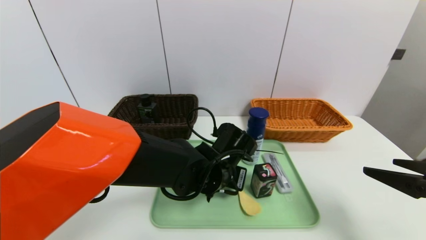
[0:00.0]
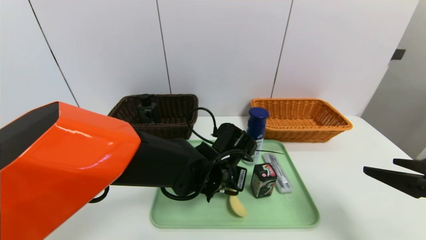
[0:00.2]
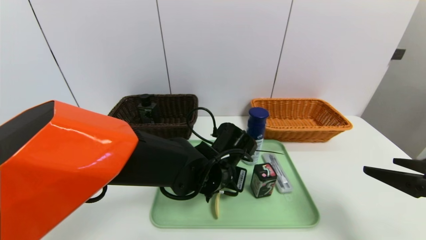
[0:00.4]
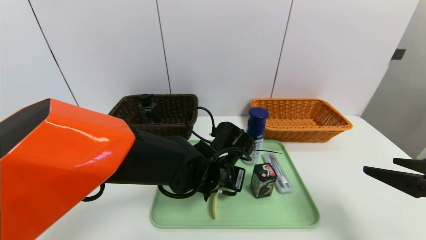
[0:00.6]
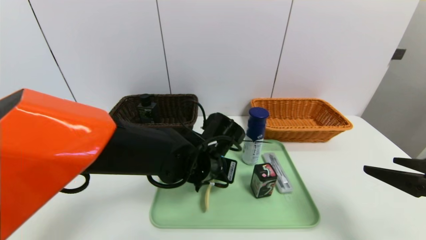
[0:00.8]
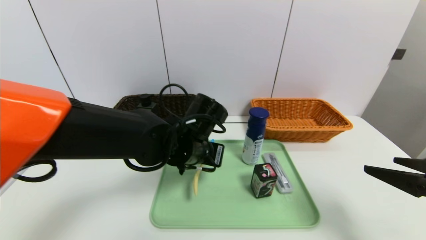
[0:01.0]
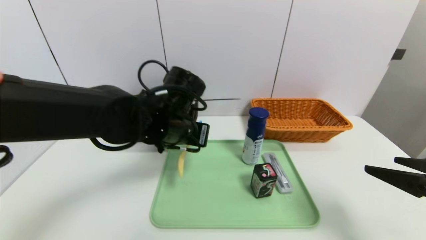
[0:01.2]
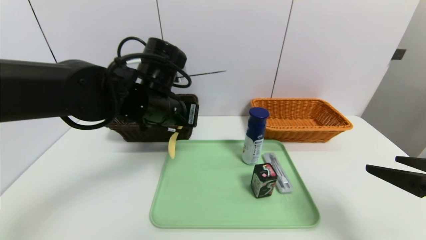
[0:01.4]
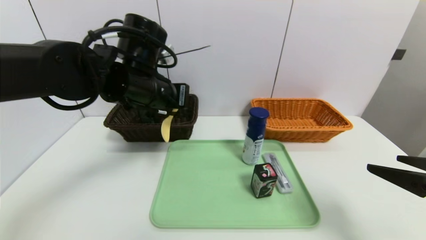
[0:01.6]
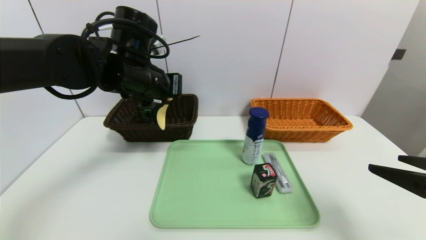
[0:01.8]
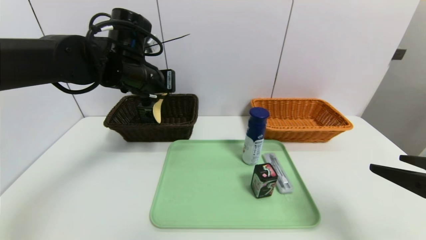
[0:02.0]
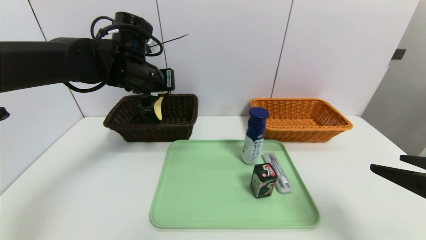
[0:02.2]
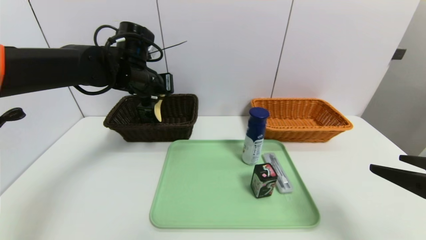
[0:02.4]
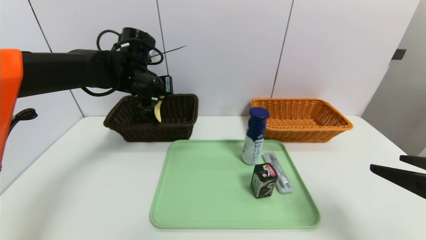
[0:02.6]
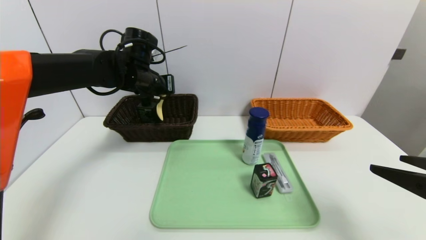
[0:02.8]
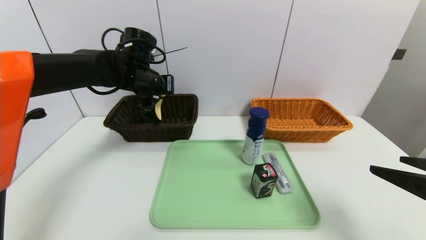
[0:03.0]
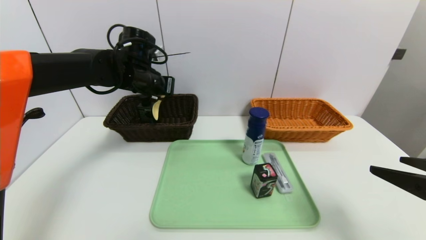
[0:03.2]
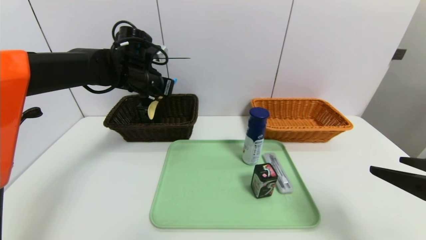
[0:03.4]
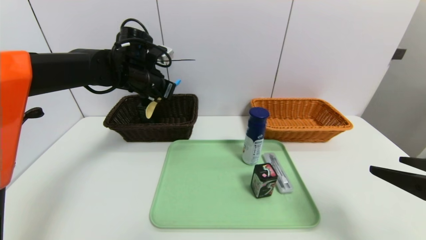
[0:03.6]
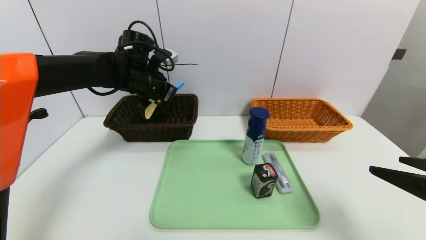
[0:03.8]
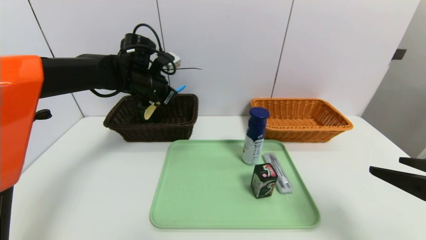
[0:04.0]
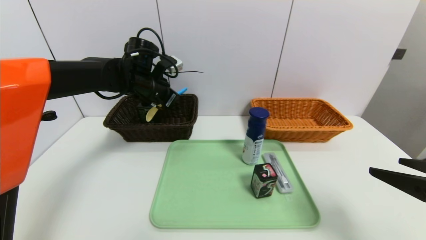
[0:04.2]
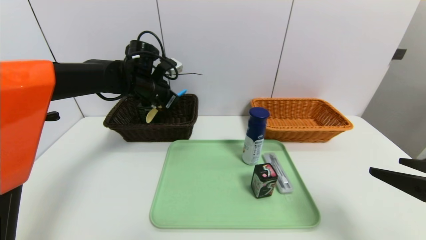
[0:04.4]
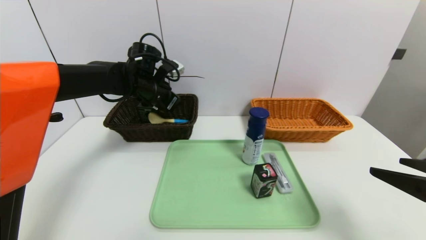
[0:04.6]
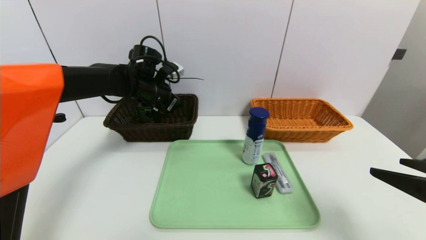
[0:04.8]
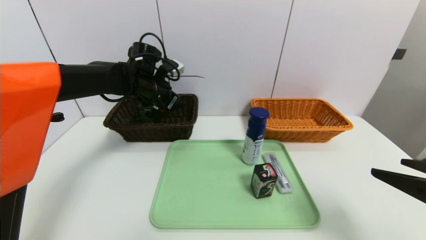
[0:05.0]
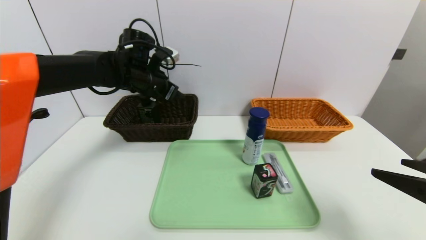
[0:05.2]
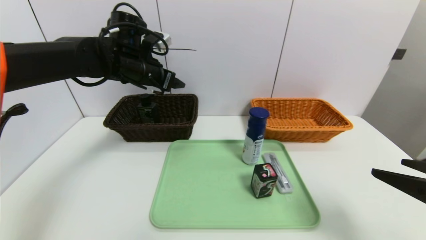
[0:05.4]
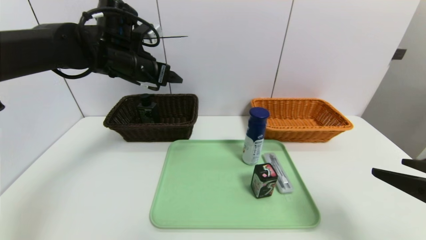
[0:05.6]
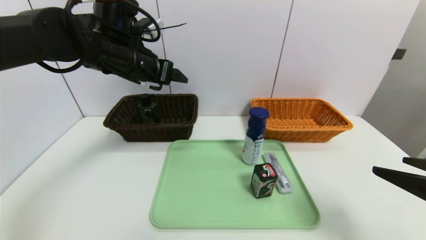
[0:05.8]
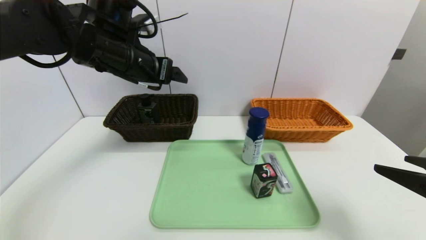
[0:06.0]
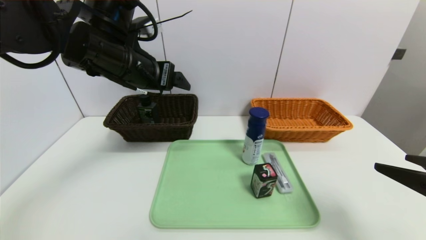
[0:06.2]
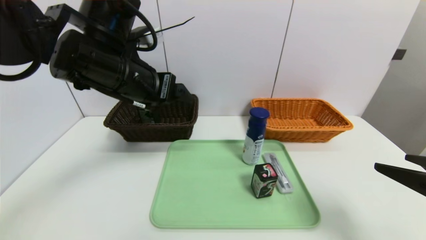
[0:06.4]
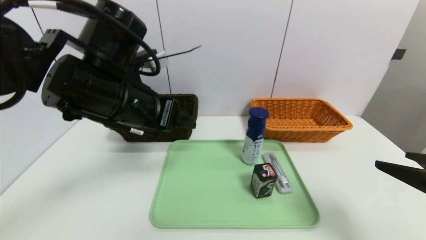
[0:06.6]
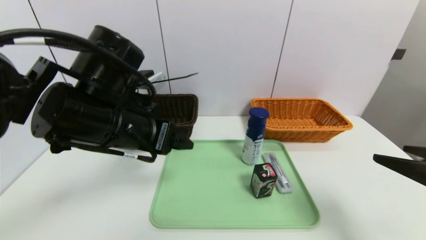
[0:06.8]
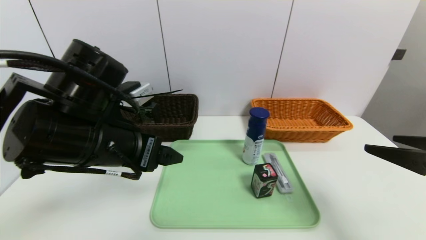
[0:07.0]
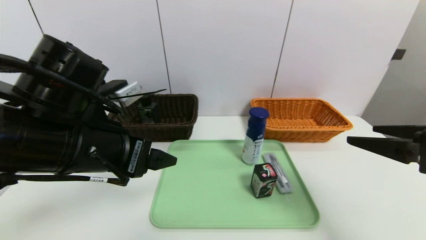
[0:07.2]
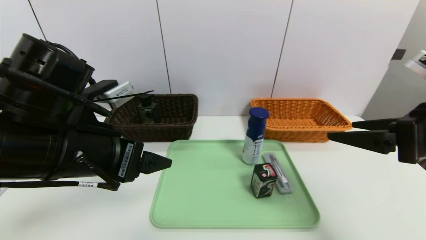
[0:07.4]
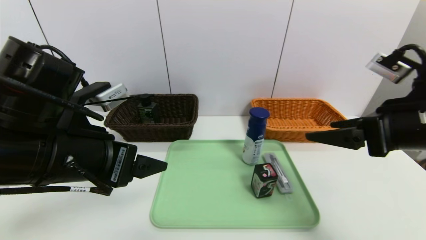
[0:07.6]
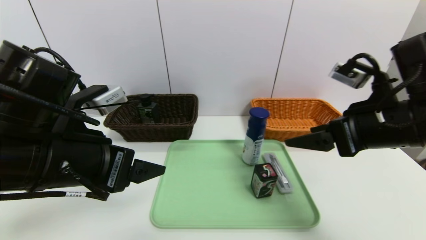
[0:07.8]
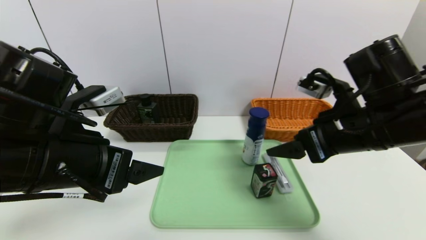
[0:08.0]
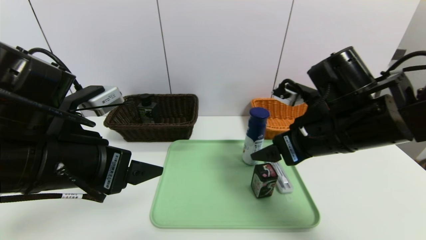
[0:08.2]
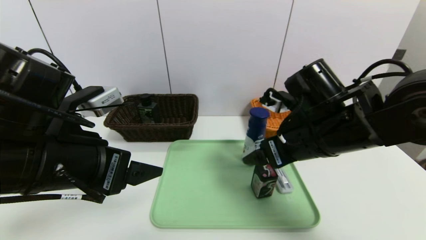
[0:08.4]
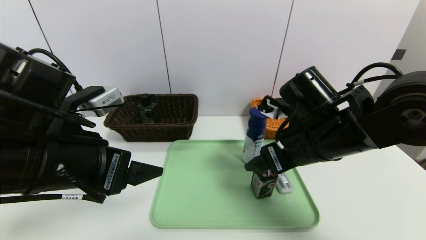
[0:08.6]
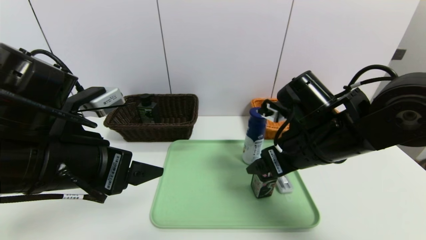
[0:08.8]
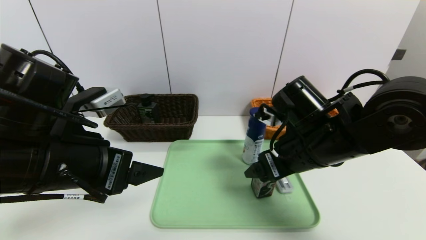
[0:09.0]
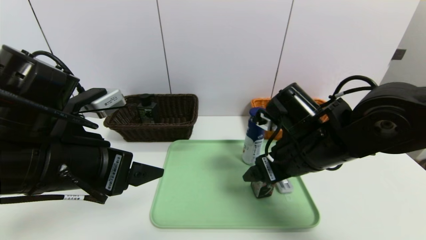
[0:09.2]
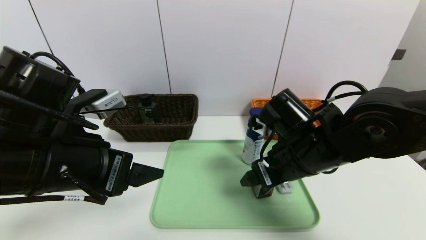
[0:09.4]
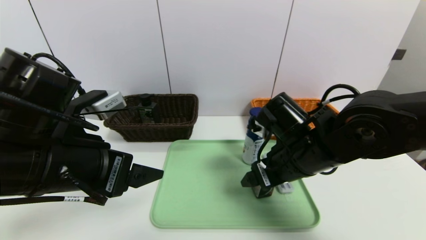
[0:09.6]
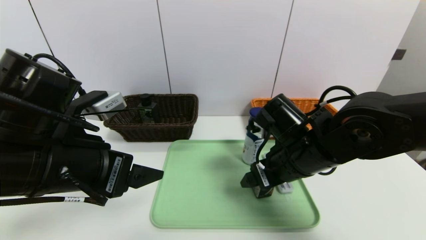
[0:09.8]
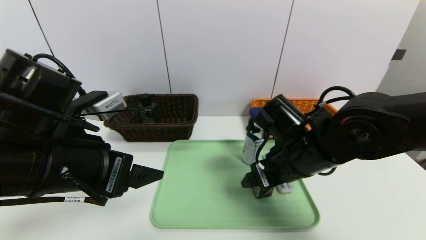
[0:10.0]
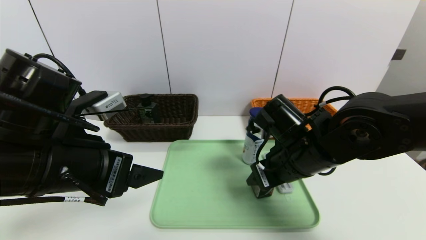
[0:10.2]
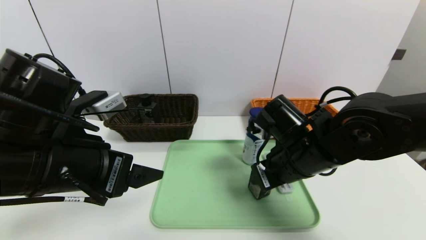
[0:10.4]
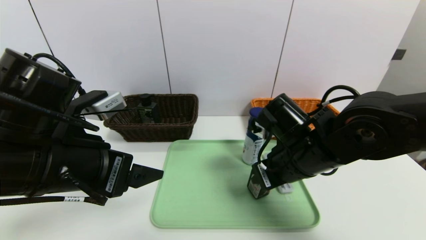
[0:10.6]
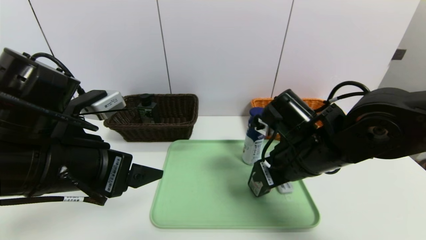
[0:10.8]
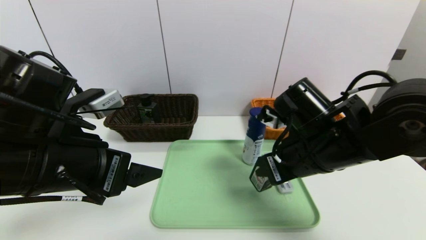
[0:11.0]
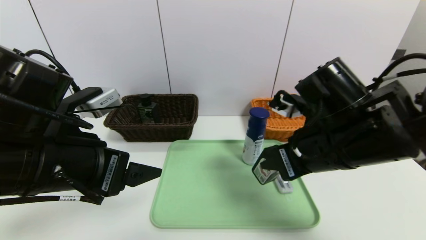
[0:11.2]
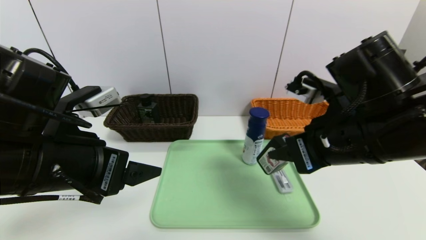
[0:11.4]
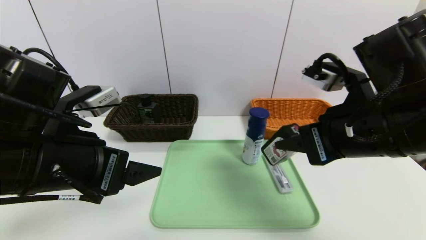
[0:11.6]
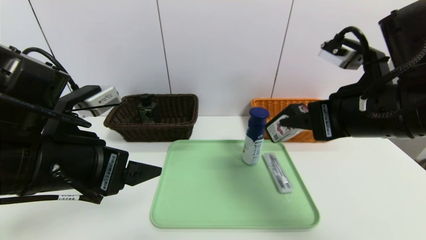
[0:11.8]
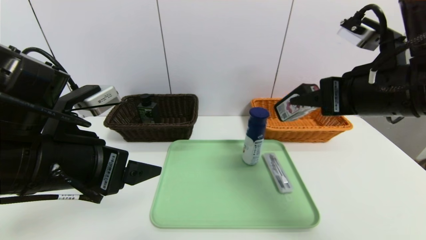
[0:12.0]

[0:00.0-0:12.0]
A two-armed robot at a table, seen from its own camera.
Task of the whole recording: place the food in the right basket with the right gripper, and place the non food items in the left basket with the left gripper.
Step, 0:00.0 to 0:05.0: Grasp the spoon and put it in the left basket.
0:00.0 to 0:01.6: The left gripper goes roughly 20 cm upward and to the left, and closes up.
0:01.6 to 0:03.0: The left gripper moves forward, roughly 10 cm.
0:04.4 to 0:06.0: The left gripper travels backward and upward by about 15 cm, and opens up.
0:06.0 to 0:07.6: The left gripper is displaced backward and downward by some 15 cm. Meanwhile the right gripper shifts some 10 cm forward and to the left.
0:07.6 to 0:09.0: The right gripper travels to the left and downward by approximately 15 cm.
0:09.0 to 0:10.4: The right gripper closes its fingers.
0:10.4 to 0:12.0: The right gripper moves upward and to the right, approximately 15 cm.

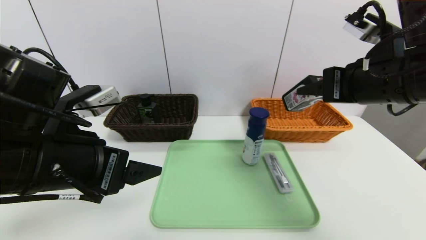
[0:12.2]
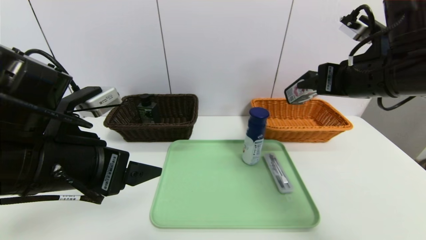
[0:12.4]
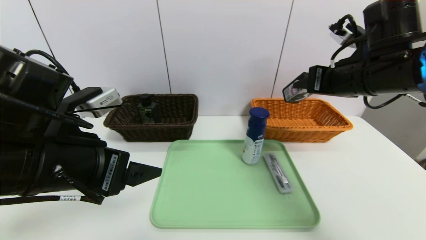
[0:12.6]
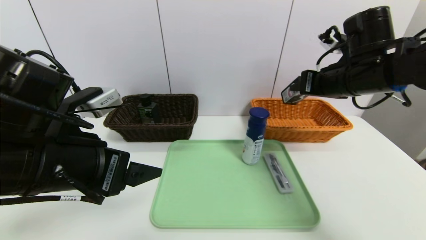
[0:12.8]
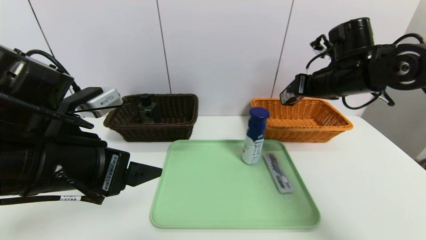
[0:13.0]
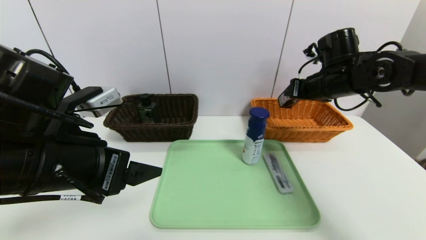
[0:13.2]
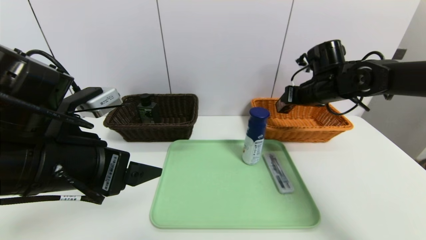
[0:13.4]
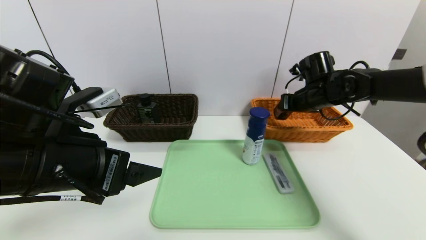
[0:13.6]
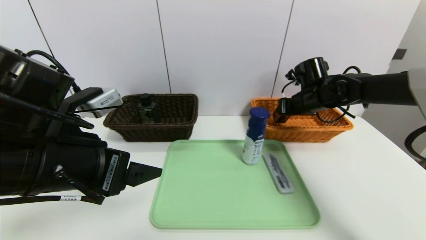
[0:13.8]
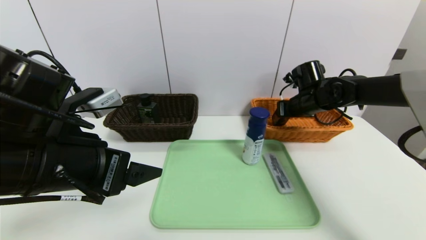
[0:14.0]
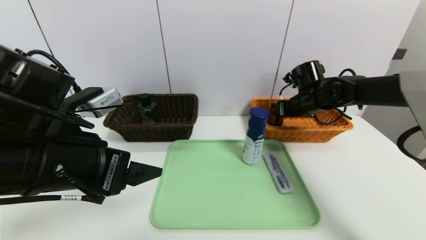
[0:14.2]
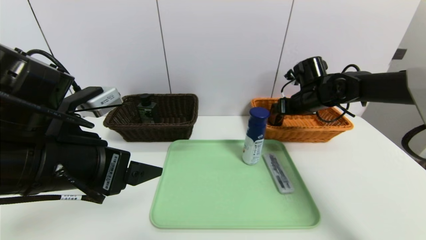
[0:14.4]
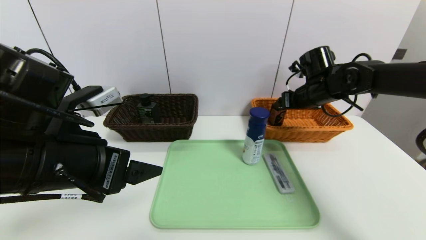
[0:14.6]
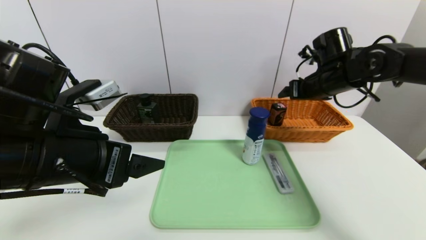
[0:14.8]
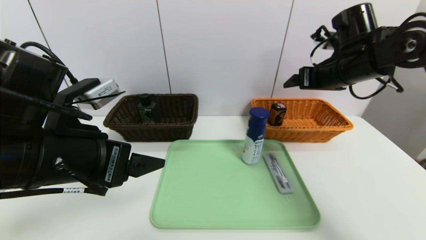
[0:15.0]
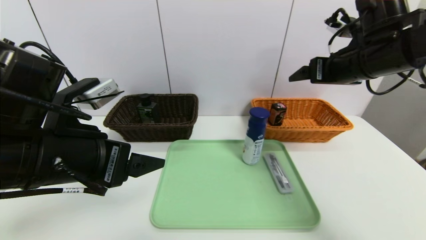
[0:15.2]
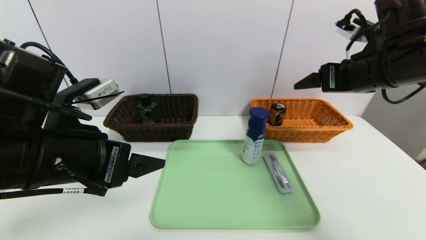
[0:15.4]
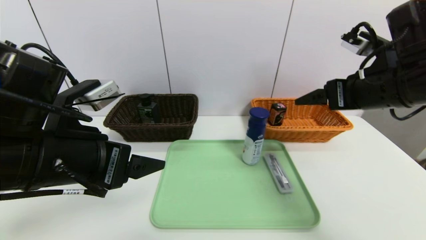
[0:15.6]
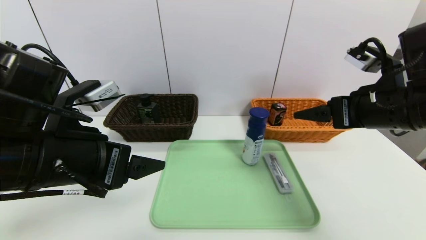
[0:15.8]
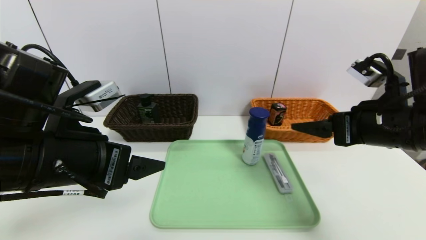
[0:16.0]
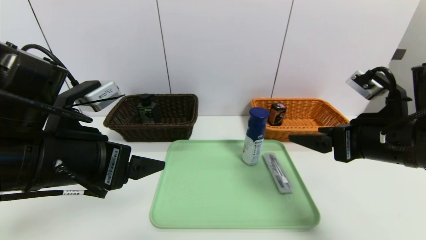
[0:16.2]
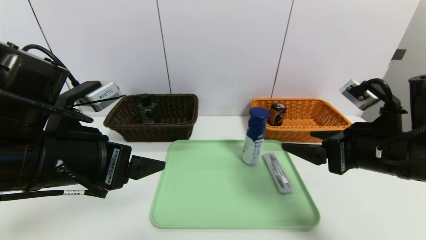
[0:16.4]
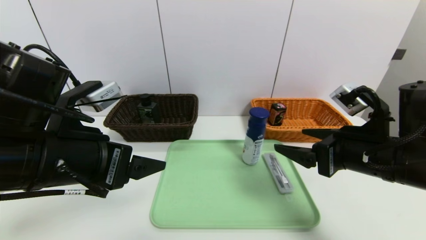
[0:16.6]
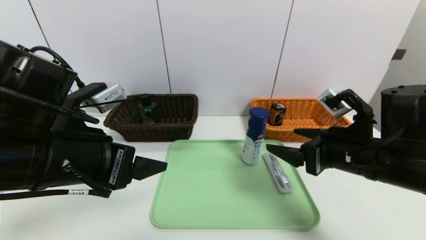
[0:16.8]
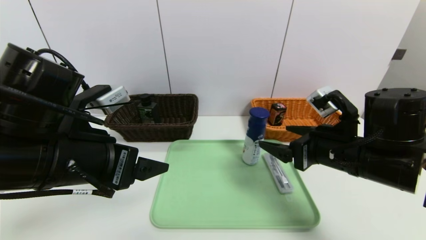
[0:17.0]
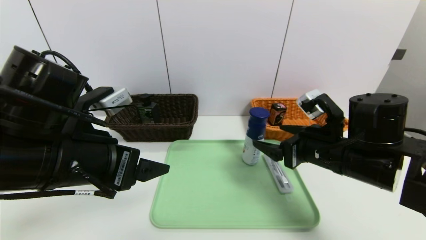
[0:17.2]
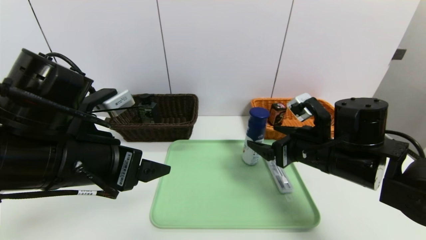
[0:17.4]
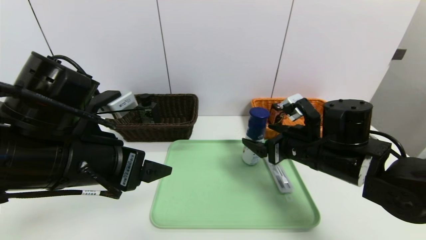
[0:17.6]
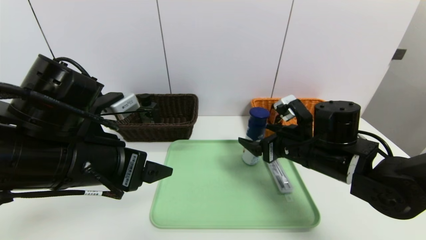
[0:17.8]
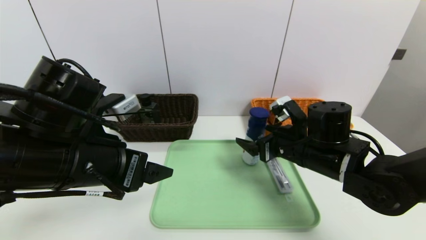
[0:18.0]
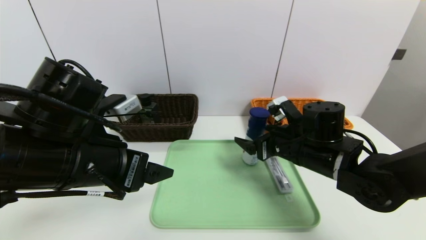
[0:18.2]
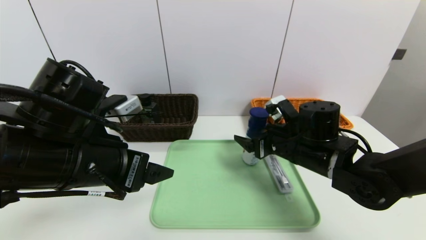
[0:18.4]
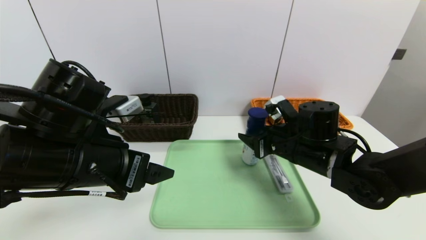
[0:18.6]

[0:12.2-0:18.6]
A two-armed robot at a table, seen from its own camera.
Task of the whole recording: place the food in the right basket with the right gripper, and place the non food items in the left basket with the left gripper.
Step, 0:12.2 to 0:14.8: Grasp the square chewing gum and put it in the right basket.
0:12.2 to 0:13.8: The right gripper moves forward and downward, approximately 25 cm.
0:13.8 to 0:15.4: The right gripper heads backward and upward, covering approximately 20 cm, and opens its fingers.
0:15.4 to 0:17.0: The right gripper heads downward and backward, covering roughly 15 cm.
0:17.0 to 0:18.6: The right gripper moves forward, about 5 cm, and closes its fingers.
